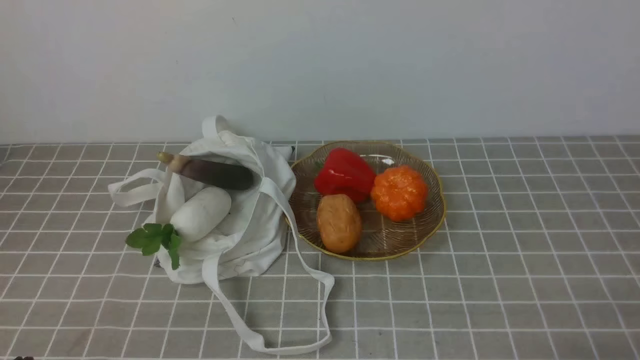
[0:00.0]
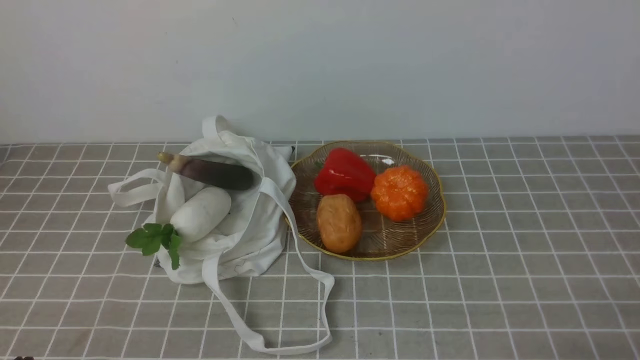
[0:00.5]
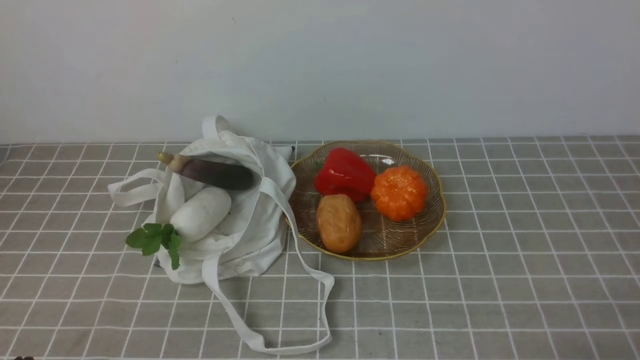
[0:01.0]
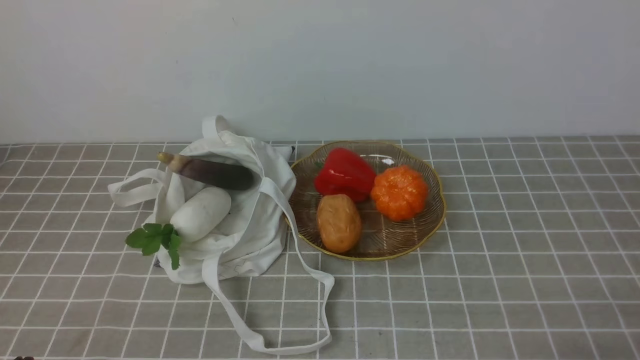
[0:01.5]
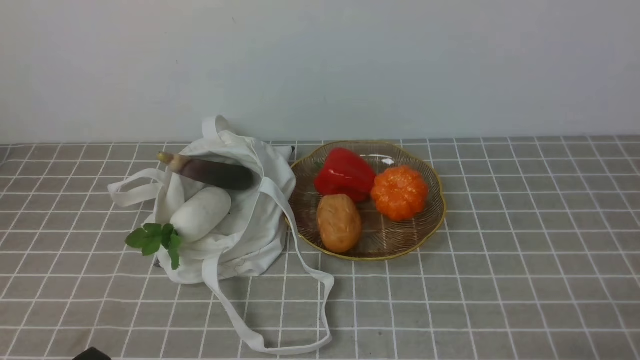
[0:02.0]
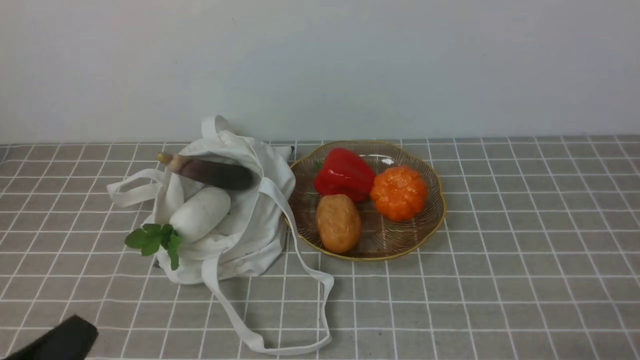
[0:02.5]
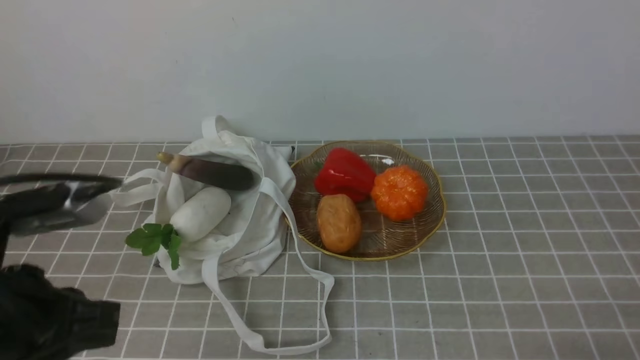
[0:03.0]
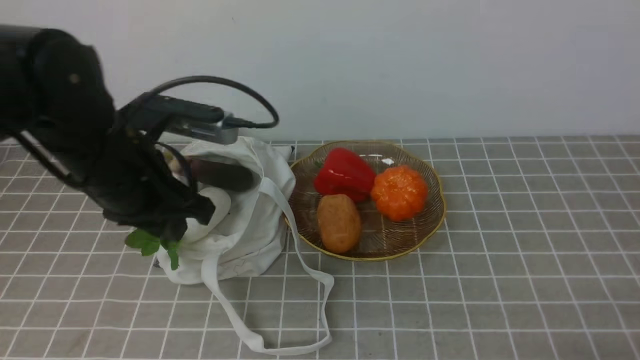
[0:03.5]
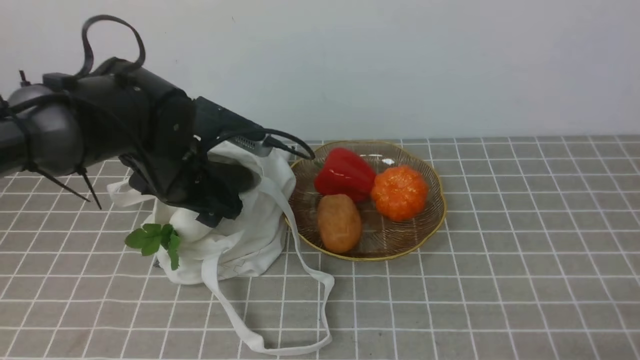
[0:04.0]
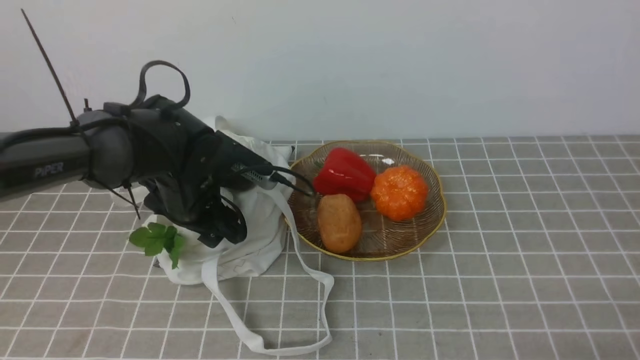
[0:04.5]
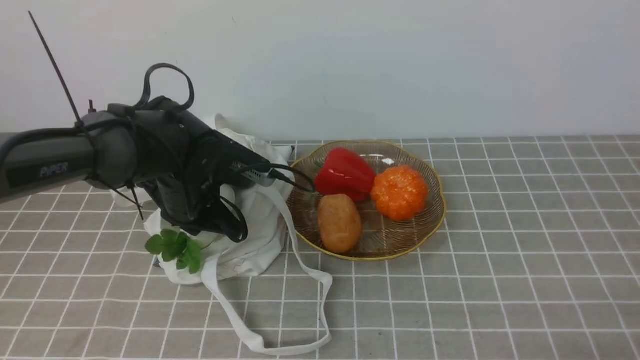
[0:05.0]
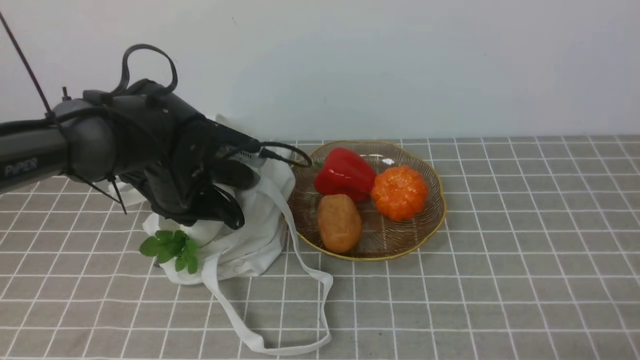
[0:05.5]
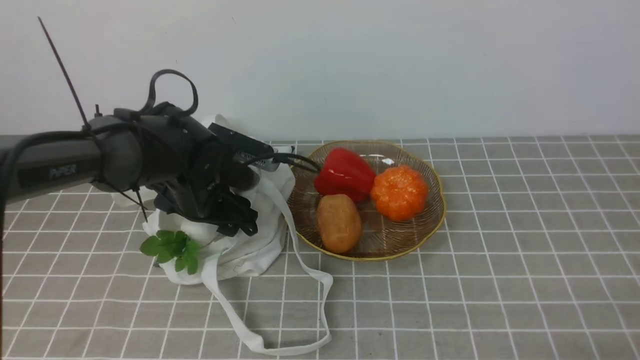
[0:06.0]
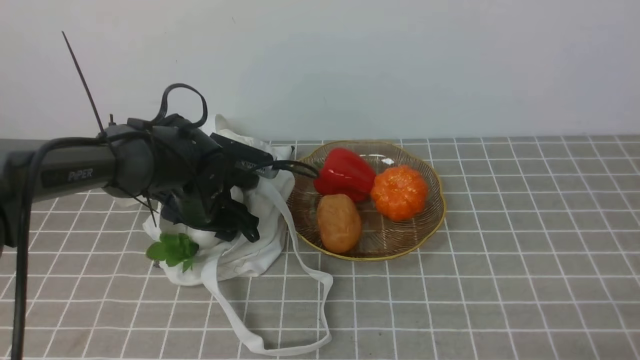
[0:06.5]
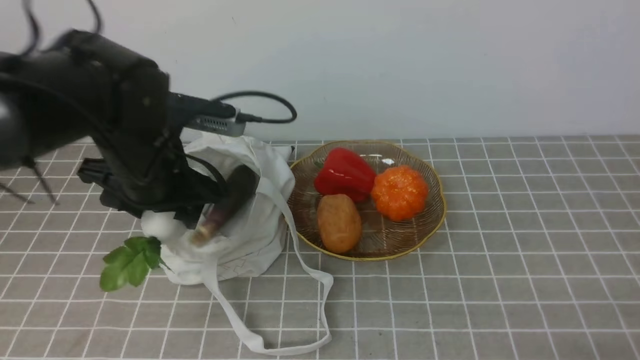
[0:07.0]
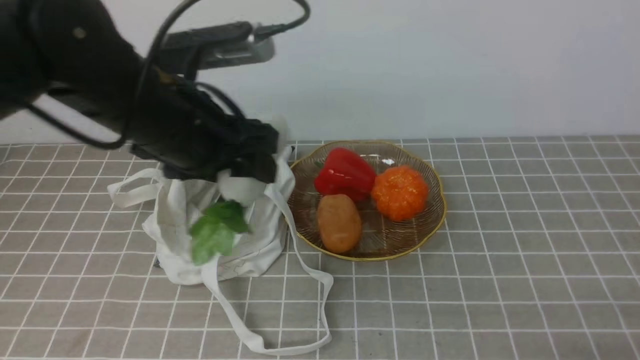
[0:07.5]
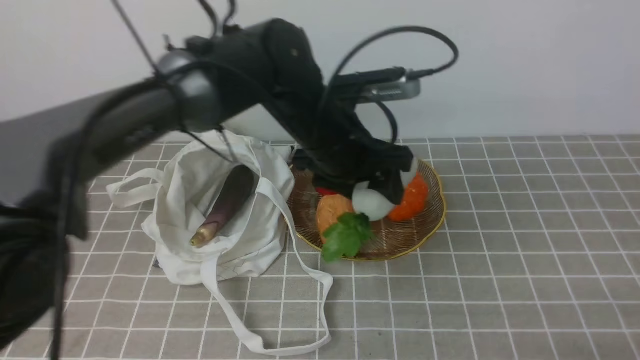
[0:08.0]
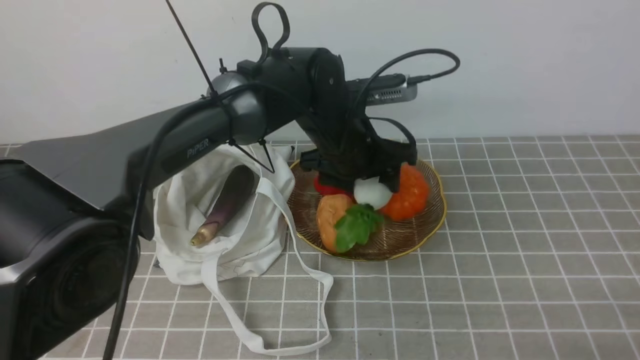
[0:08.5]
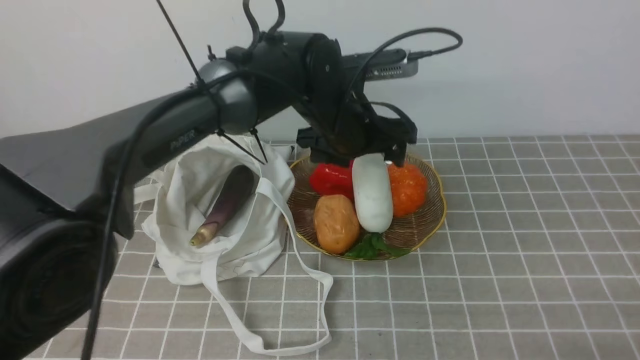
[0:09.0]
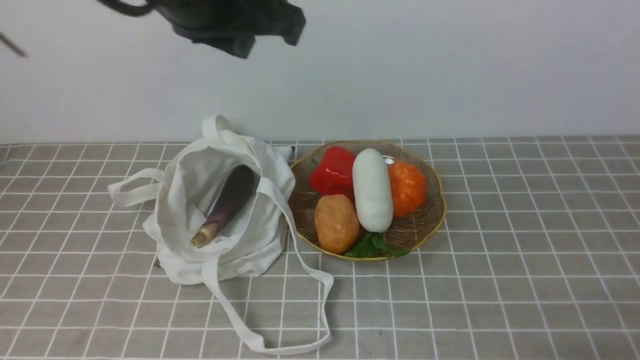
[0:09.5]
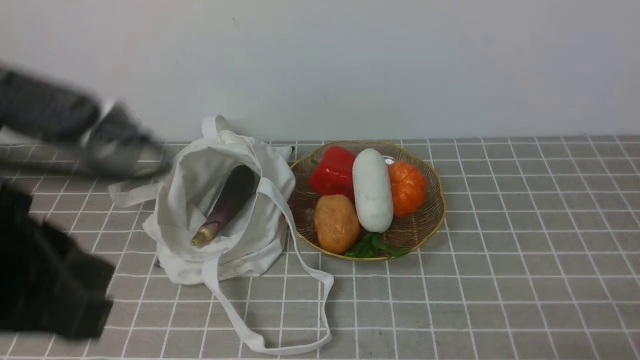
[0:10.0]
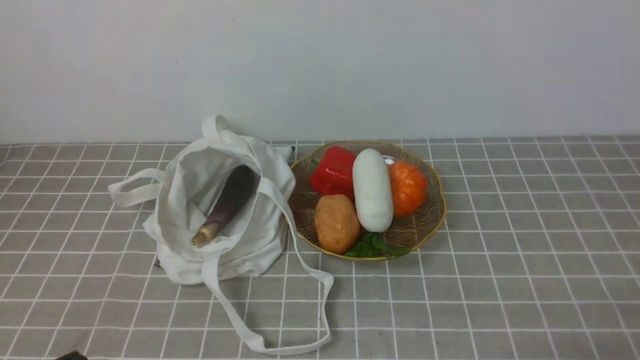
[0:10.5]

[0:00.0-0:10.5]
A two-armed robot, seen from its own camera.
Task of the whole recording: take vegetables from bag on grey coffee tablecloth place on plate.
Step, 0:00.0 to 0:05.0: Grasp the radish with left gripper.
Step, 0:05.5 to 0:09.0: Place the radish on the plate with left gripper.
0:02.0 to 0:04.0: The left gripper heads forward, covering about 30 cm, and opens.
0:04.0 to 0:06.5: The left gripper shifts some 10 cm downward, and closes, then reopens.
0:06.5 to 0:08.5: The left gripper heads to the right and upward, covering about 20 cm.
0:08.5 to 0:10.5: The left gripper shifts roughly 40 cm backward and to the left, and closes.

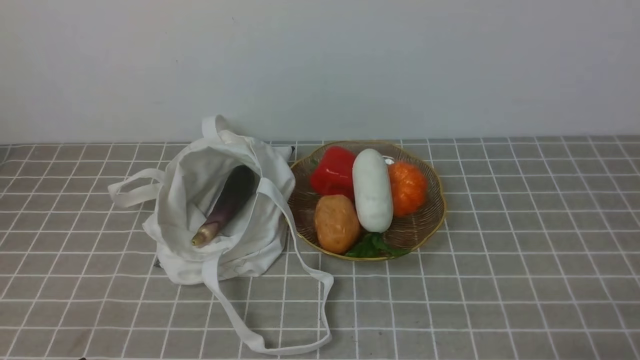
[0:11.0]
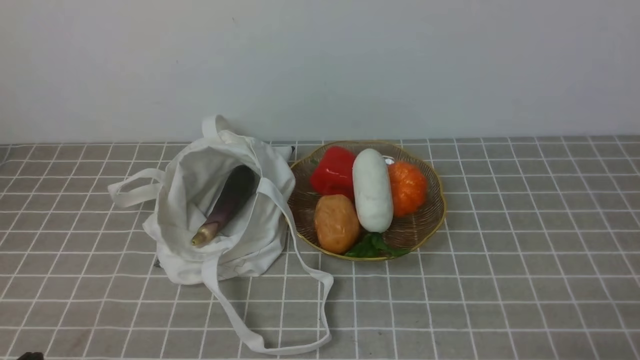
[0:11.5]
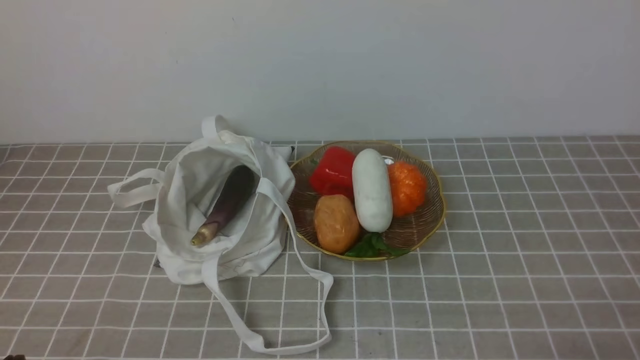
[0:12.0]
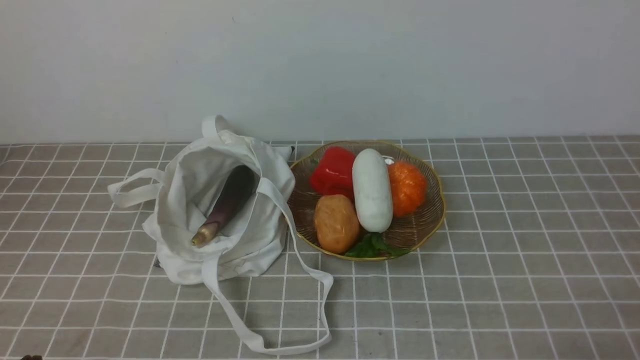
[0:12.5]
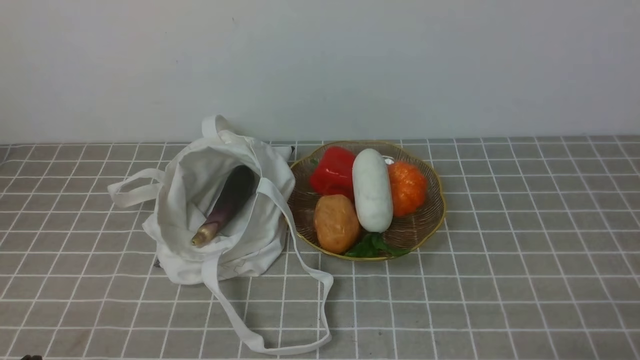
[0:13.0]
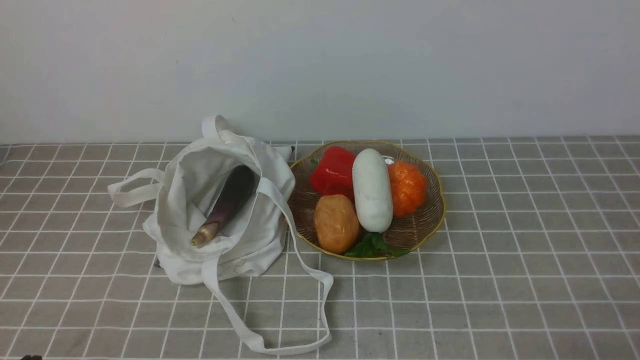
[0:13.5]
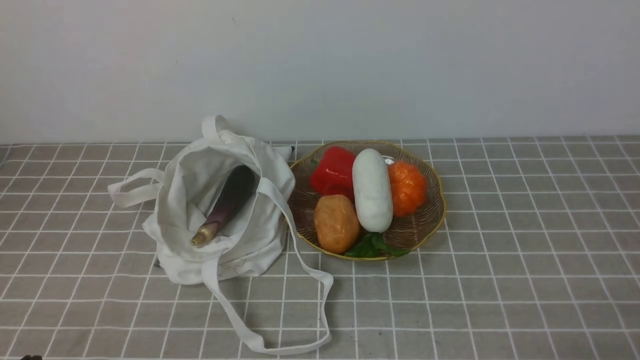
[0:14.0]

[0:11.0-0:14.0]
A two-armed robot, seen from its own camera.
Task of the whole recording: take vegetables from bag on grey coffee tablecloth place on plate.
0:12.5 to 0:14.0: Both grippers stay about where they are.
